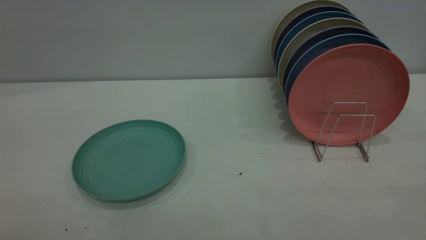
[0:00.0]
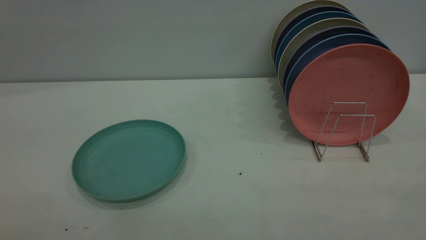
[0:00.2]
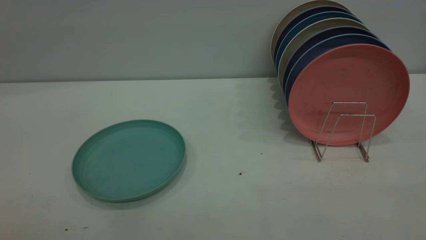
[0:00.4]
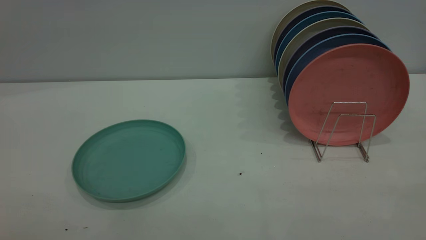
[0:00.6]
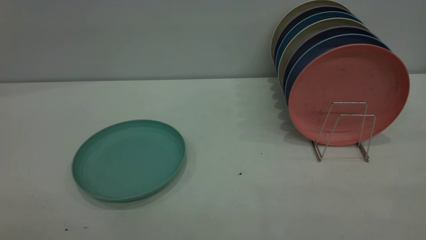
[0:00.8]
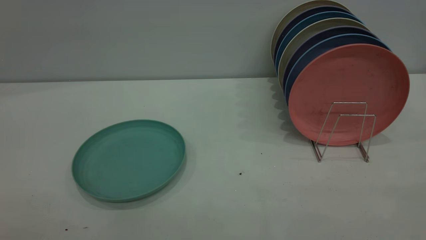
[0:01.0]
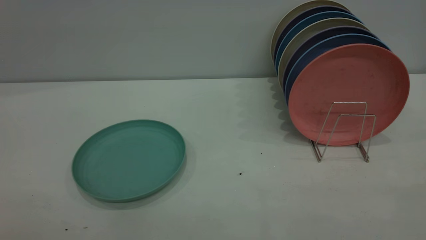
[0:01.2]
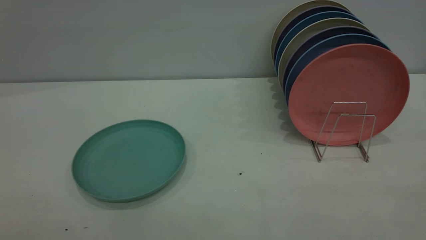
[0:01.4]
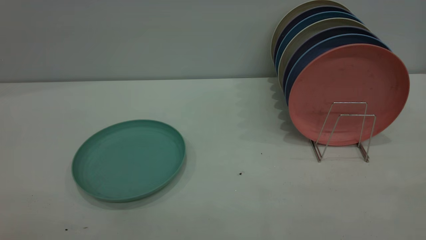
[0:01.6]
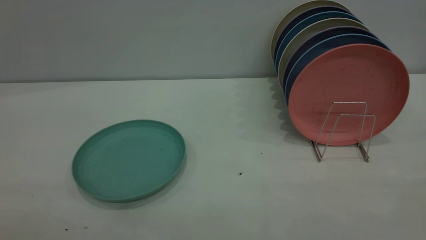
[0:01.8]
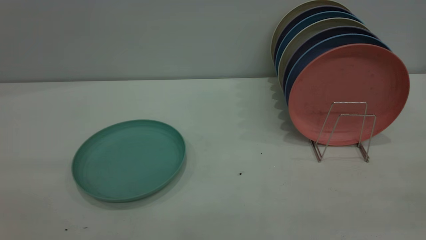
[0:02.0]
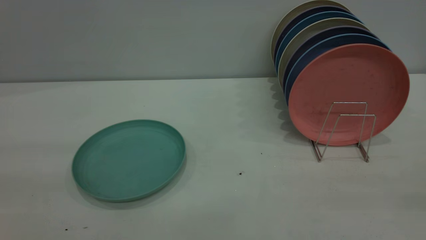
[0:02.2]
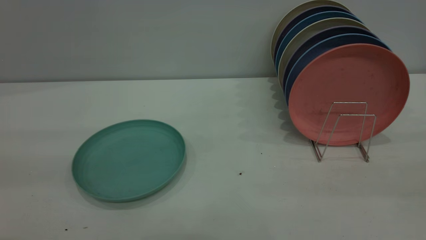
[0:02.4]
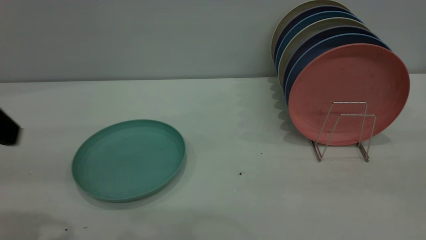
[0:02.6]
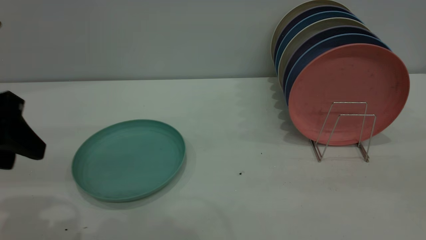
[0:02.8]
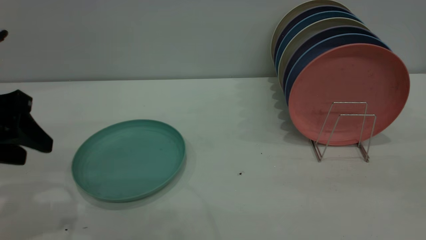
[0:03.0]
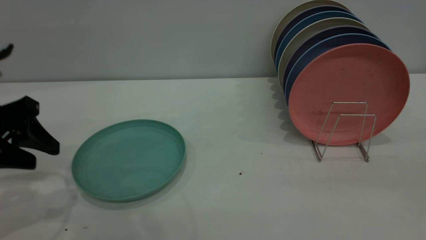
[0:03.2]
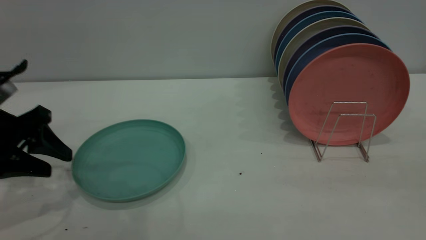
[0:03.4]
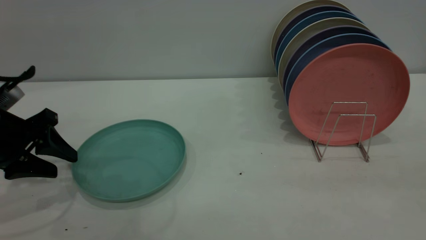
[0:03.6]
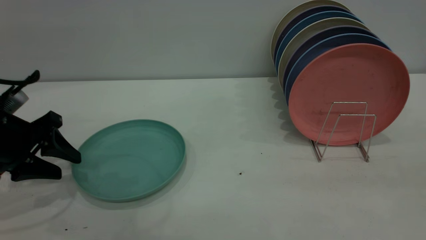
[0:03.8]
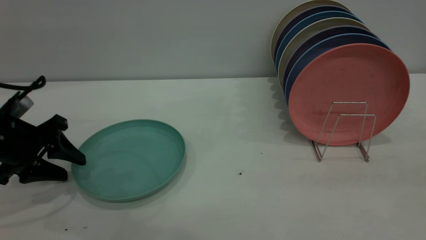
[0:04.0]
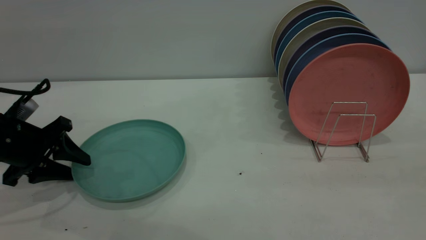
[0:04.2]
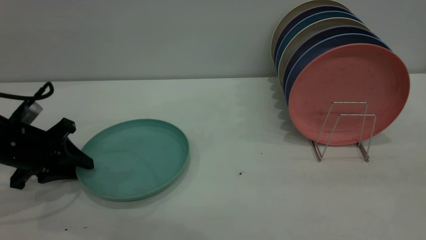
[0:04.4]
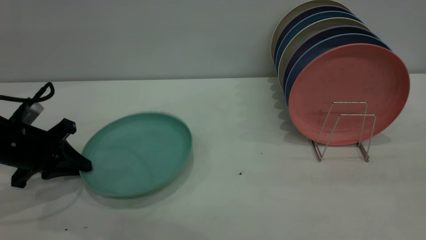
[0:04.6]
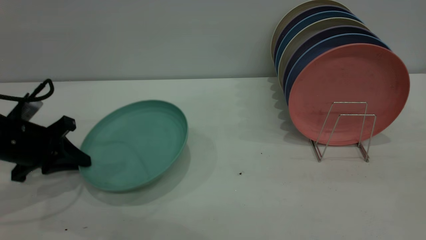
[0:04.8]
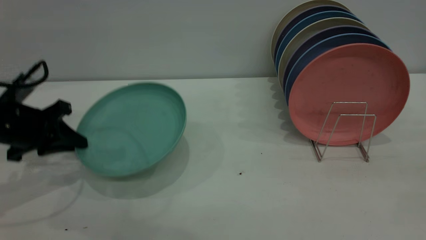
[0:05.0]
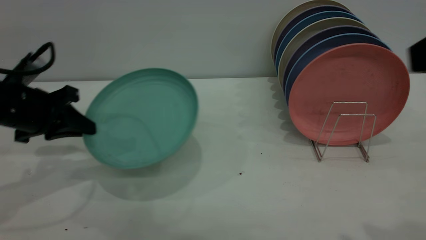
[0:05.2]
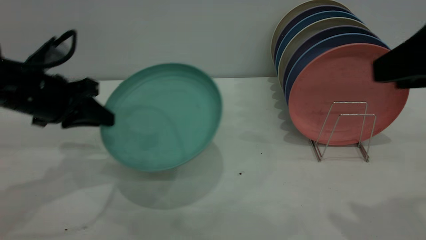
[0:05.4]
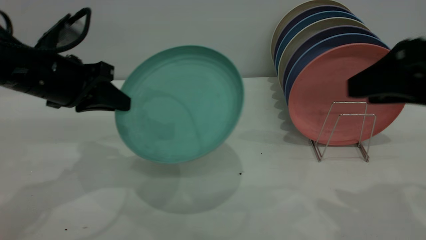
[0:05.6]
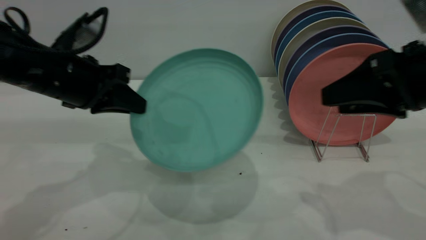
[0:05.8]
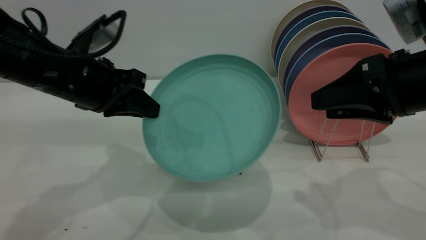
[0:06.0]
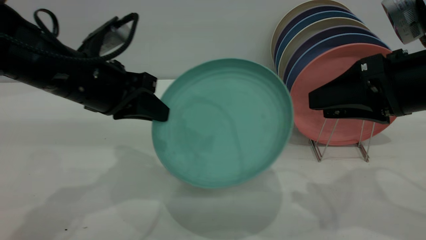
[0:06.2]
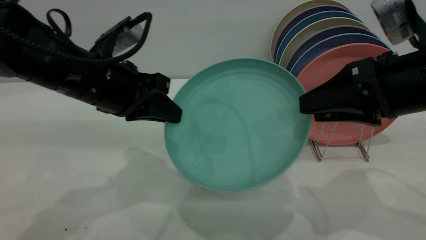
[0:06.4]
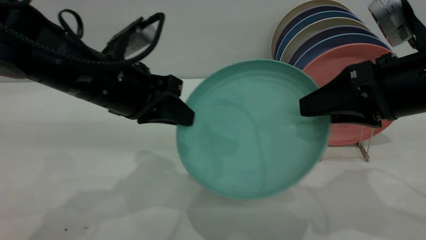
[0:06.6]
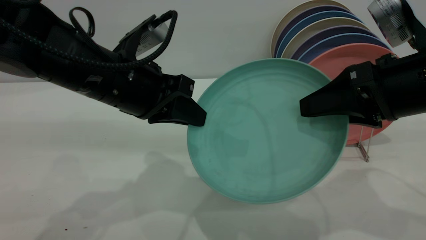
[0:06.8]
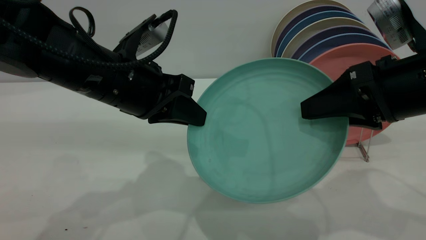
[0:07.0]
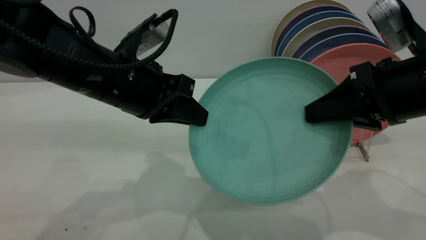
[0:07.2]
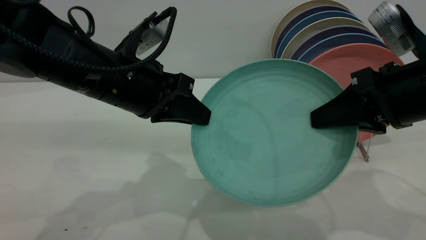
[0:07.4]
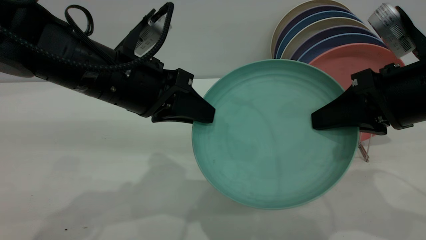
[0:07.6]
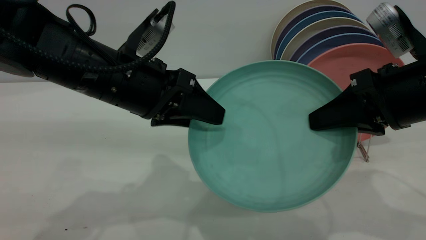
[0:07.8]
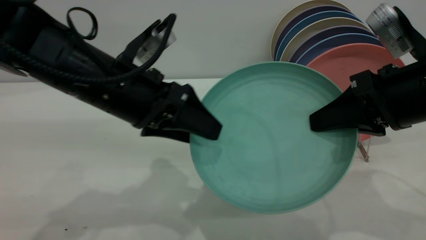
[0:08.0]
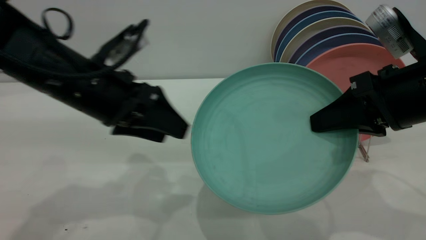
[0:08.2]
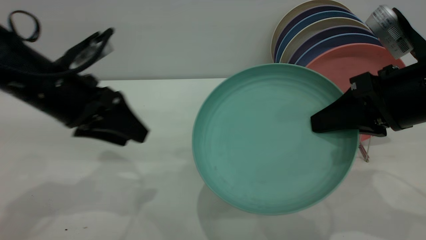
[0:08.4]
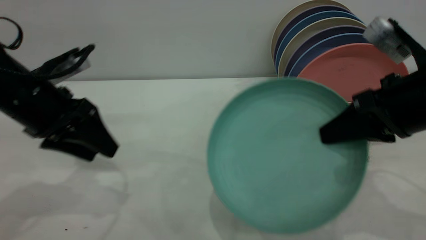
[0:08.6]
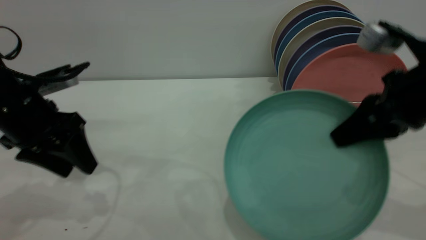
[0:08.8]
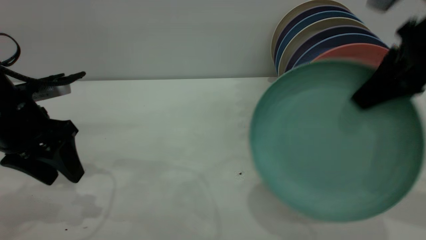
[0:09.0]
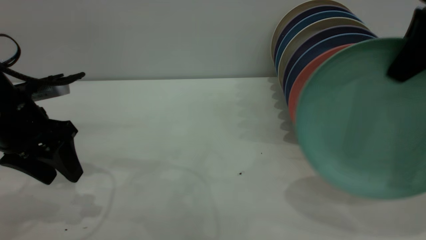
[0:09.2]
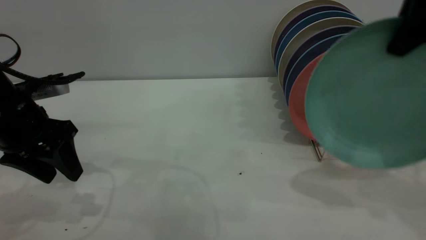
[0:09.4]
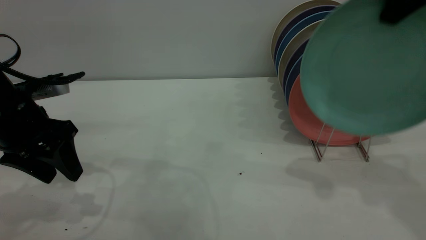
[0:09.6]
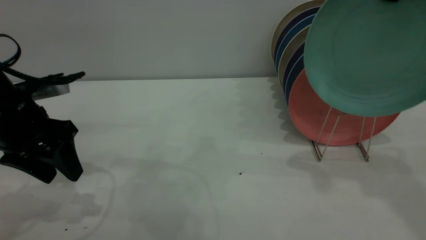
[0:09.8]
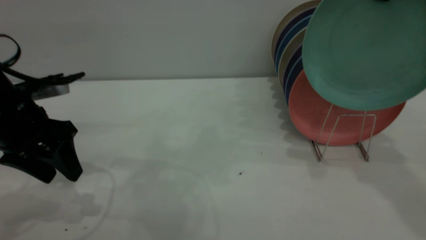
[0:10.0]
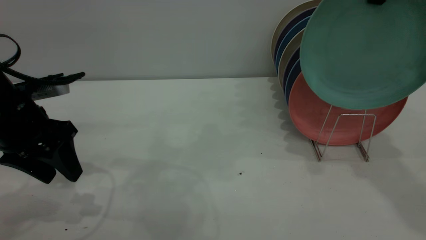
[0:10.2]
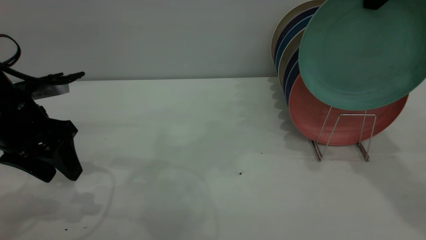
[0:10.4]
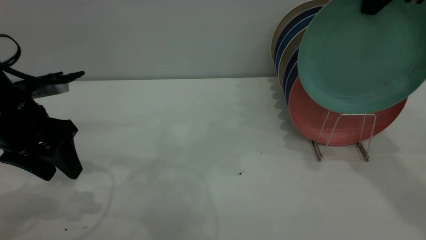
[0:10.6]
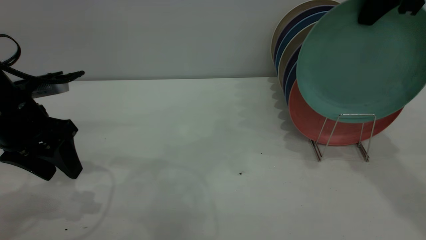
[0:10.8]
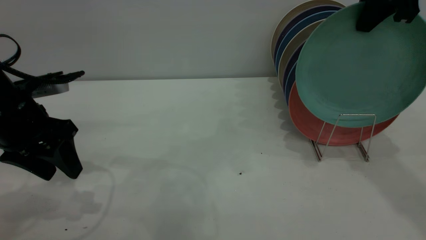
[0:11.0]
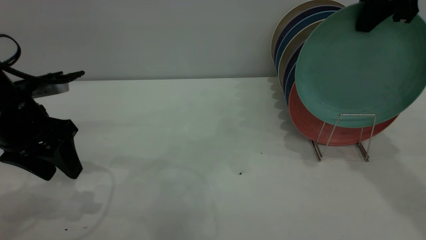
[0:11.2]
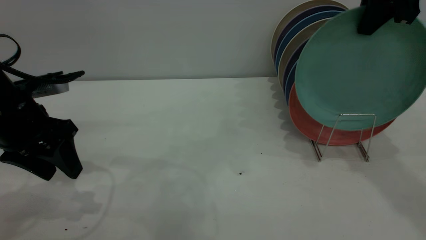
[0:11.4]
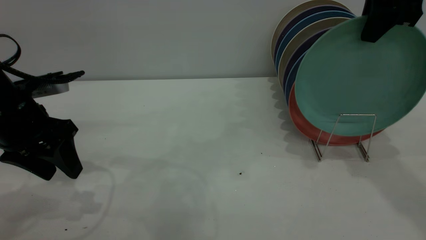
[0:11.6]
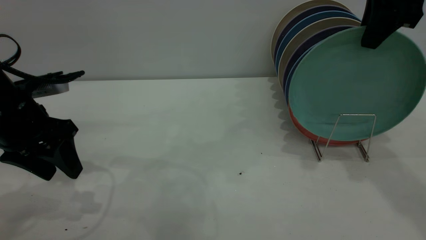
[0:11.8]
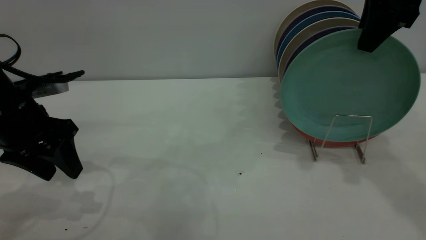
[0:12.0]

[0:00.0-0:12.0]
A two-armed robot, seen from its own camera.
Task of the whole recording: the left gripper grasp the green plate, the left gripper pass the green plate to the right gripper, and the right gripper place the green plate on the plate rack.
Step, 0:00.0 to 0:04.8: Pick up the plate with the left gripper.
Step, 0:05.0 to 0:08.2: Pass the plate from the left gripper to the right gripper.
0:00.0 to 0:01.6: Neither gripper changes place.
0:01.6 to 0:03.0: The left gripper moves forward and downward, roughly 30 cm.
0:03.0 to 0:04.4: The left gripper goes about 15 cm downward and forward, and closes up.
0:04.4 to 0:06.0: The left gripper shifts some 15 cm to the right and upward, while the right gripper heads forward and downward, covering about 20 cm.
0:06.0 to 0:07.6: The left gripper shifts some 5 cm to the right, and opens its fingers, while the right gripper closes up.
0:07.6 to 0:09.0: The right gripper goes roughly 10 cm upward. Meanwhile the left gripper is displaced to the left by approximately 15 cm, and opens its fingers.
0:09.0 to 0:10.4: The right gripper travels forward and upward by approximately 10 cm.
0:10.4 to 0:12.0: The right gripper opens its fingers.

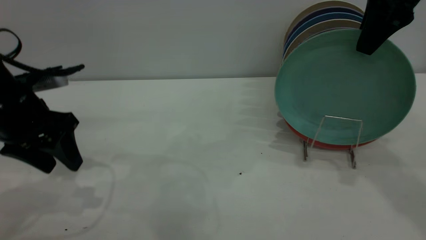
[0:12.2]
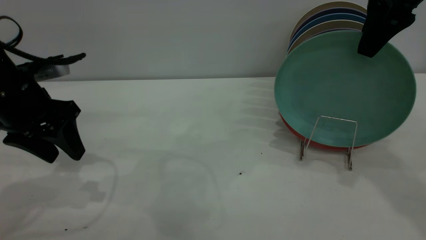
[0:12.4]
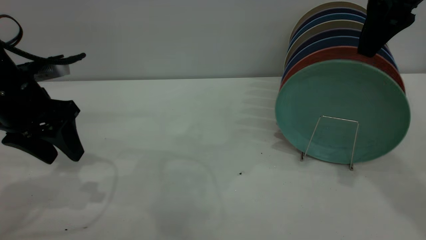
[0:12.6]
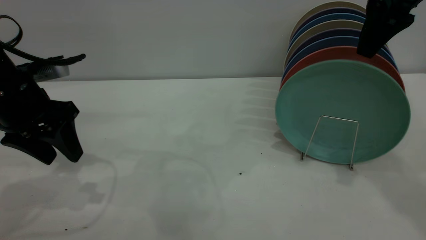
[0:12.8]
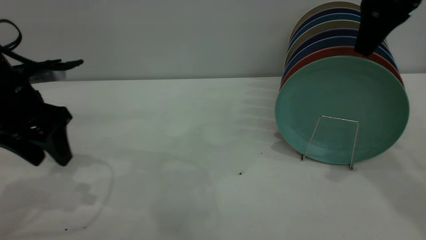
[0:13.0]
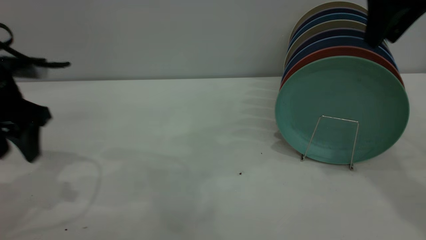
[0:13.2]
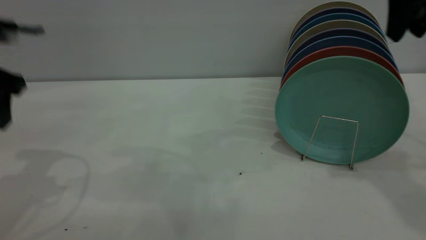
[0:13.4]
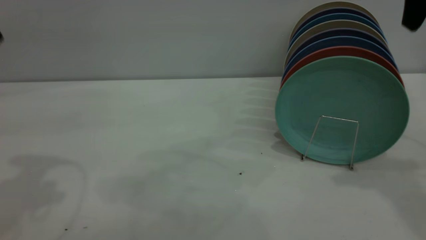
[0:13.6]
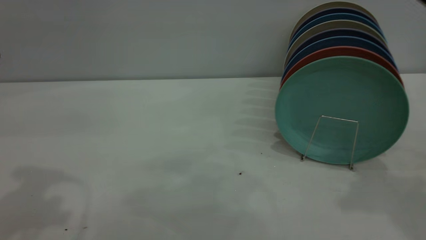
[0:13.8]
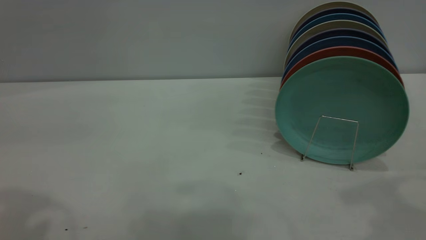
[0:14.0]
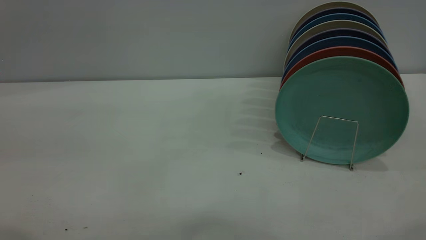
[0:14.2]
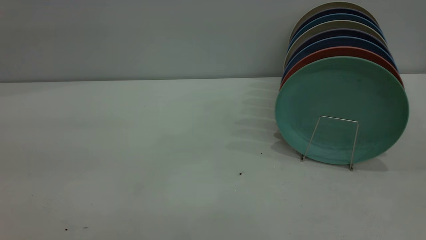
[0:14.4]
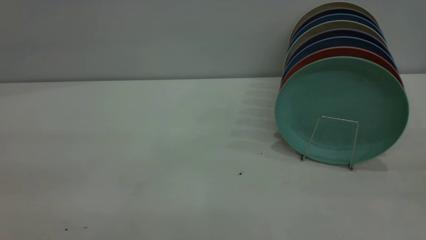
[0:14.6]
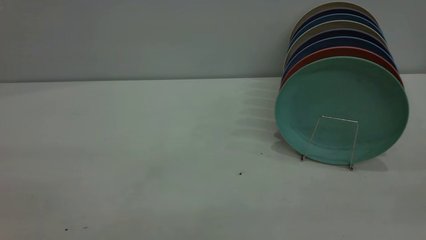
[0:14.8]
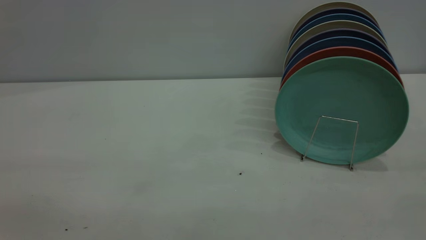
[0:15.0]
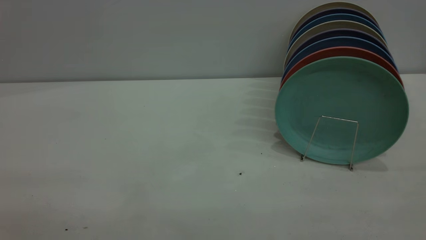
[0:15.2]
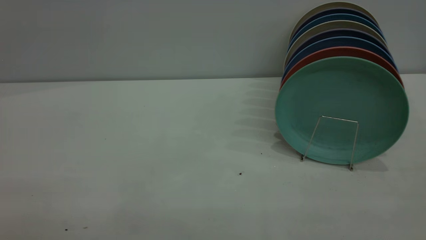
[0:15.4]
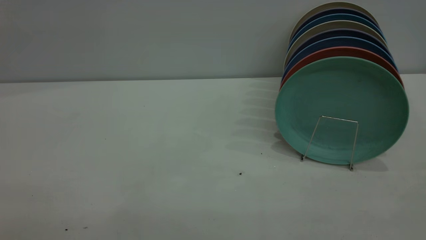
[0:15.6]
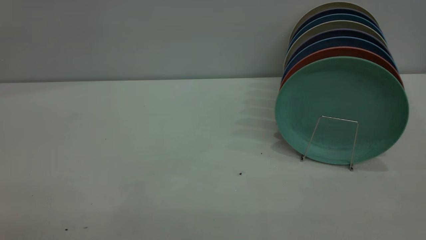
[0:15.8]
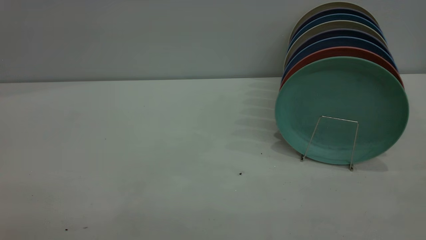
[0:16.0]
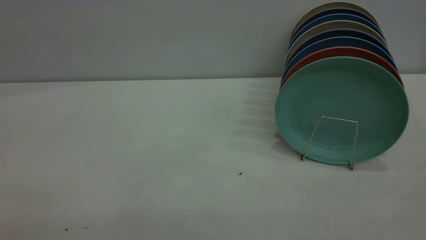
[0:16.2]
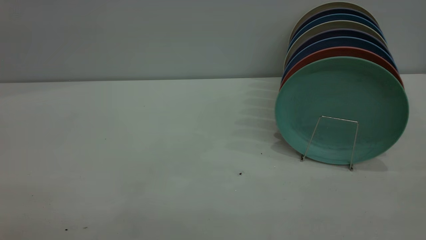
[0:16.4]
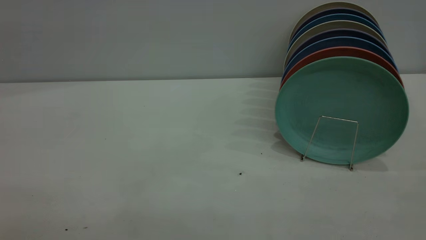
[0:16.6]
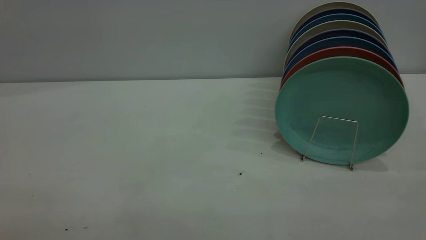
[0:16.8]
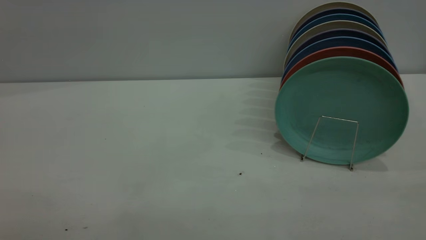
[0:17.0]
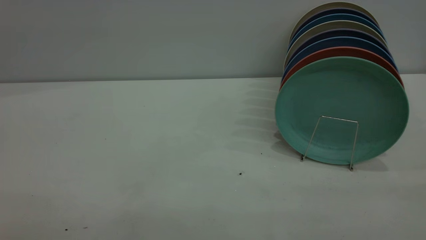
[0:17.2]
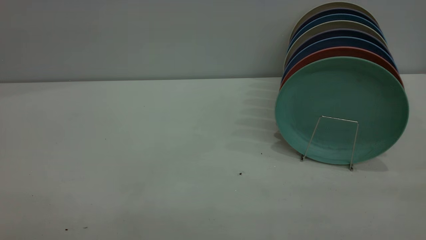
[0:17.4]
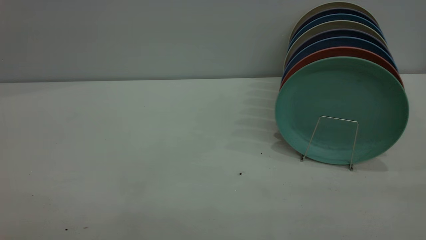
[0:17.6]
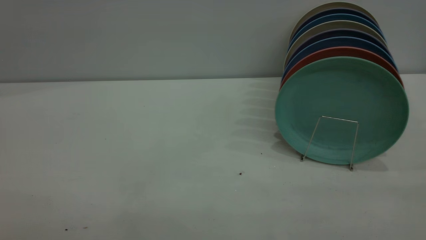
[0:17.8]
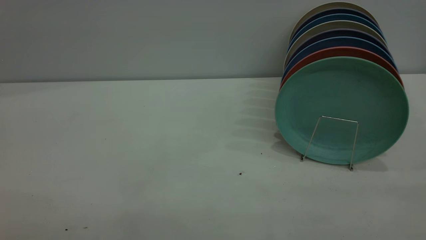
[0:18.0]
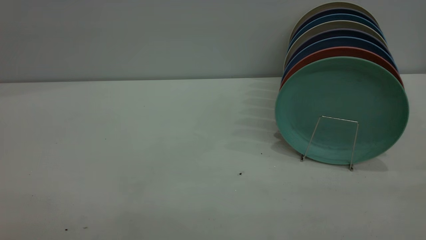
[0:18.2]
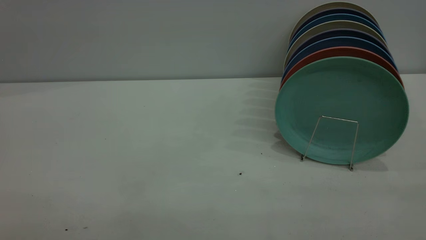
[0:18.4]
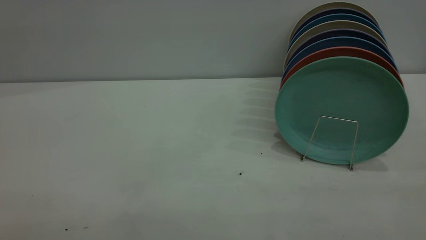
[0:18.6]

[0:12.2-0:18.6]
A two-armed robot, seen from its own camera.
Task of the whole recording: the left gripper grasp the green plate, the left gripper pass the green plate to the right gripper, and the right gripper place the green plate on the plate rack.
0:12.2 to 0:13.8: The left gripper goes about 20 cm upward. The right gripper travels backward and upward by about 15 cm.
0:17.0 to 0:18.6: Both grippers stay put.
